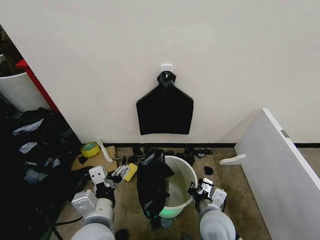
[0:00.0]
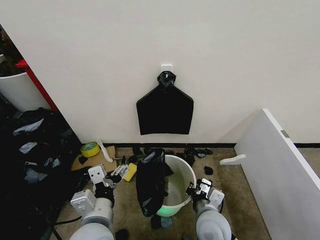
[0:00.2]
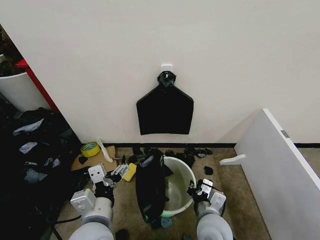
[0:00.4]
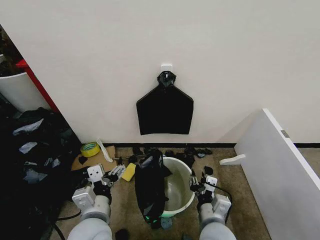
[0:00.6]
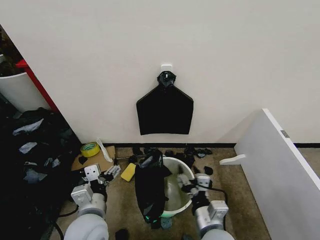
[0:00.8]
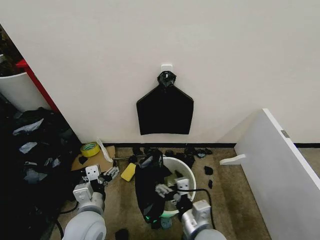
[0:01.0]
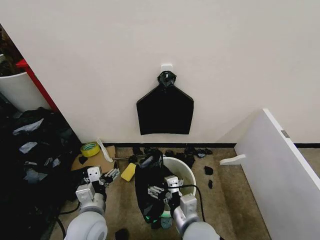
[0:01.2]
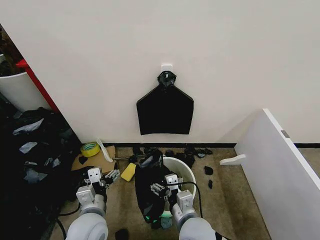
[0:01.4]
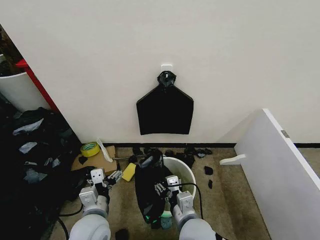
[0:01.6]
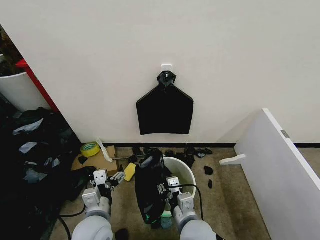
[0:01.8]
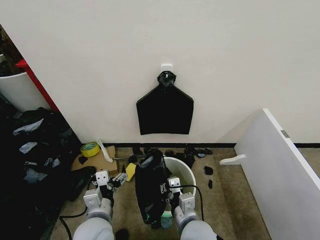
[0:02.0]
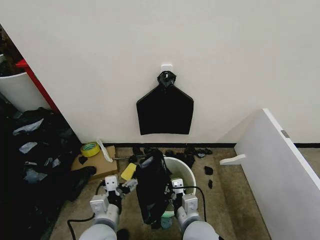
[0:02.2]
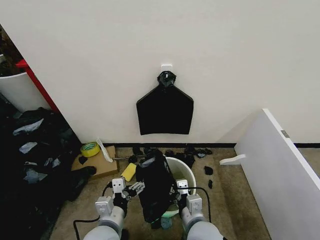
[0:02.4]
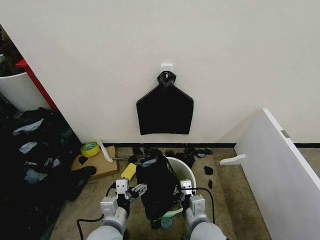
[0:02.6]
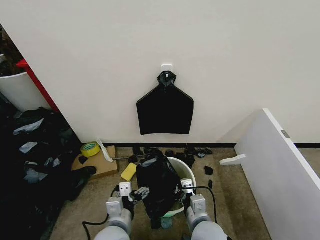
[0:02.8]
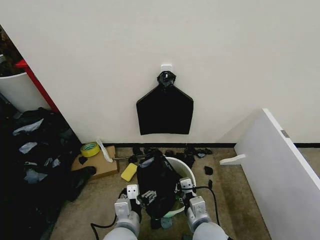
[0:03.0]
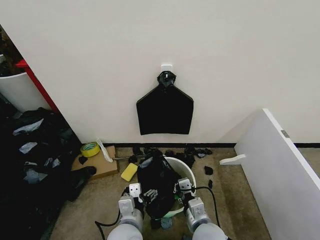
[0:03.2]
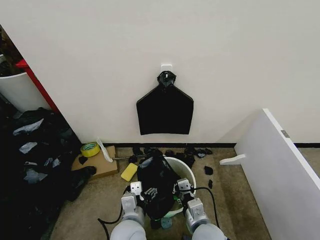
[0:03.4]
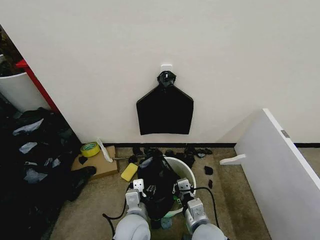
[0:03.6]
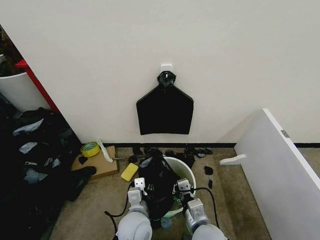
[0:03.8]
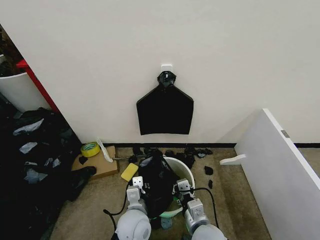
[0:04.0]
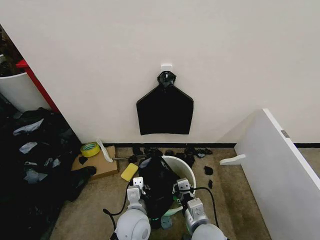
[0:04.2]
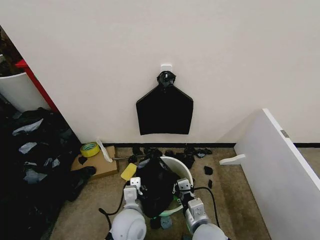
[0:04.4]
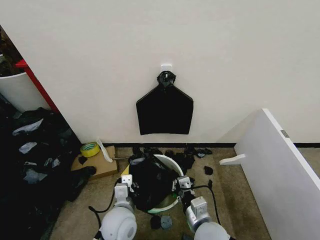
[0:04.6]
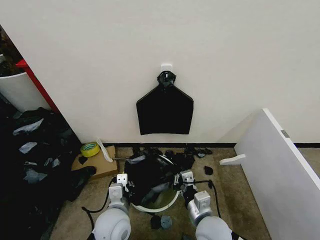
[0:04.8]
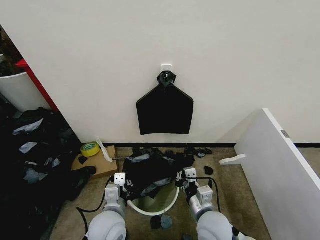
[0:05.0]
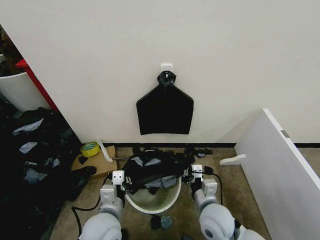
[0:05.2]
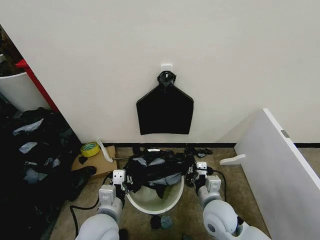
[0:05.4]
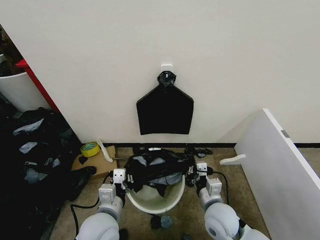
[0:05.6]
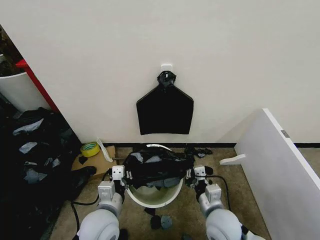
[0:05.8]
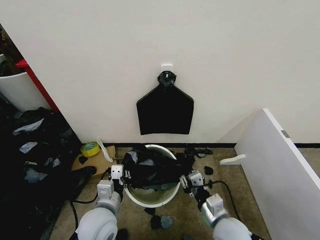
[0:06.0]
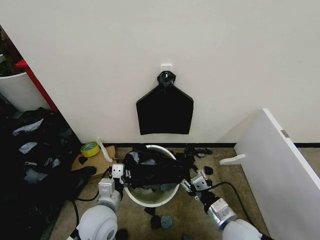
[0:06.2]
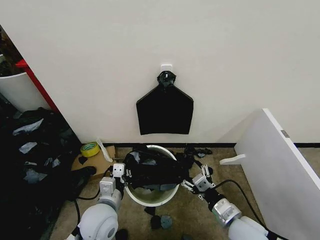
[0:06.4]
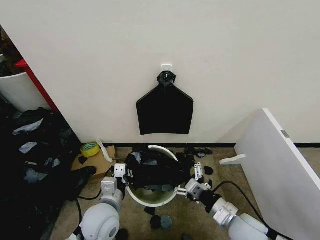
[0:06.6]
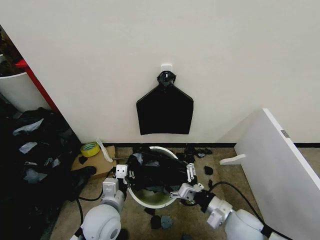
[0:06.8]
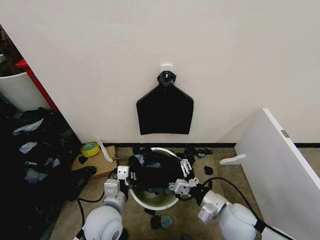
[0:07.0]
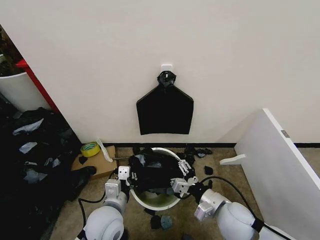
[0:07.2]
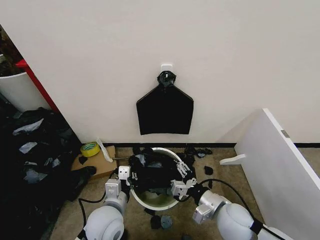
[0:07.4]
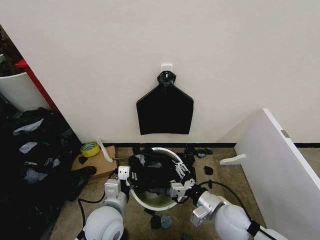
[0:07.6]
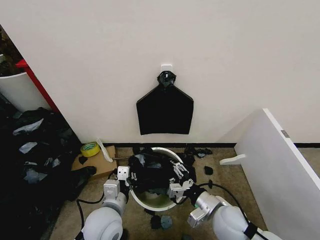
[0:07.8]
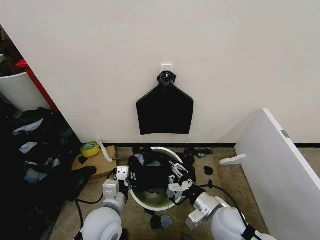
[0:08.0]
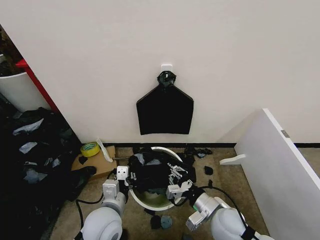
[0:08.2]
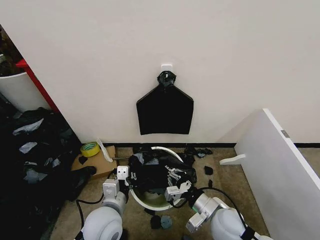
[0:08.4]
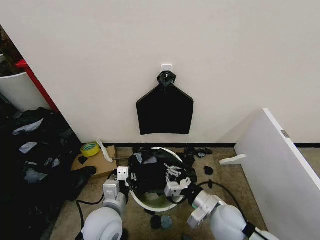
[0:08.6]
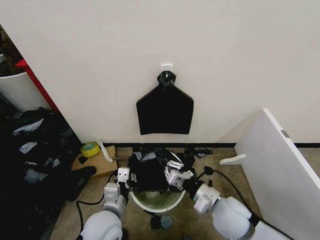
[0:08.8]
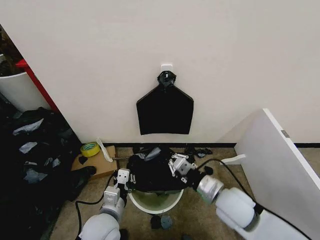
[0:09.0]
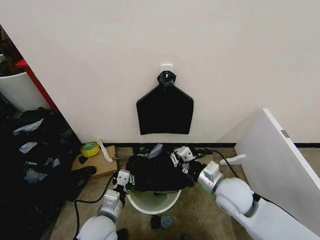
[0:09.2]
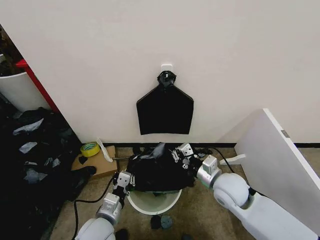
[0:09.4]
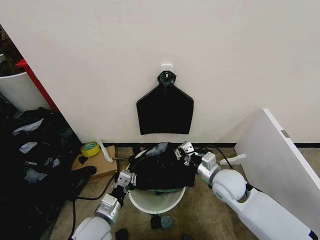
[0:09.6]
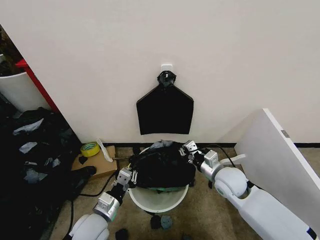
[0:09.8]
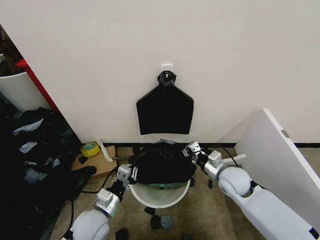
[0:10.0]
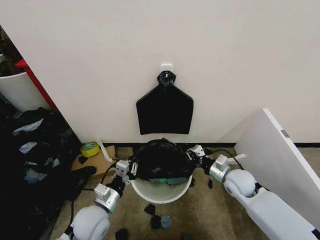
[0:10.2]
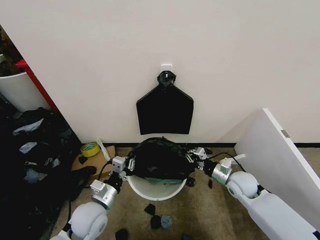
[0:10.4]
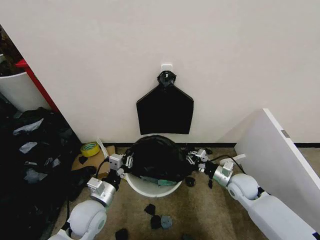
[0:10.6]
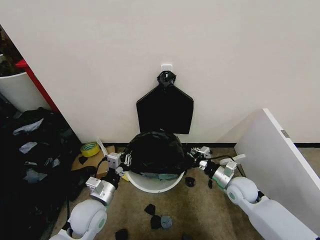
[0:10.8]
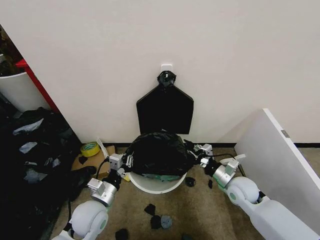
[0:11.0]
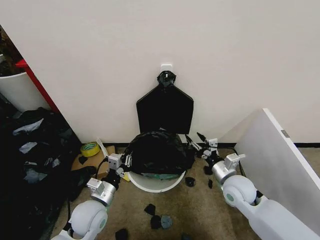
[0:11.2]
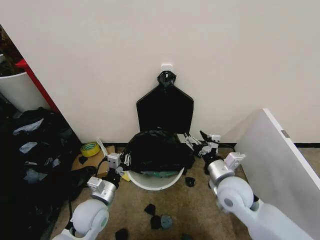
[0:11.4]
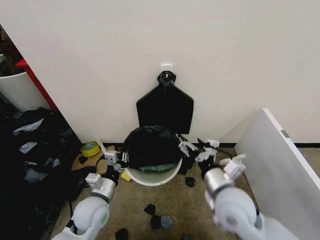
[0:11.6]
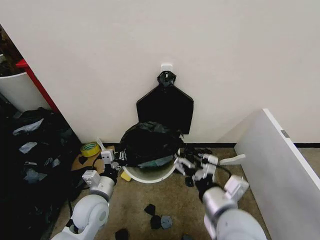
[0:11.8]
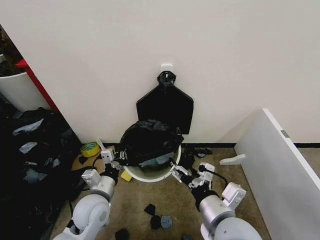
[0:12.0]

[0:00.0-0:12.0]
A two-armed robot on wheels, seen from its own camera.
Task of the whole recording: Place the garbage bag over the trash bin.
0:00.0 to 0:01.6: The right gripper goes some 5 cm to the left, and opens its fingers, while the left gripper shifts roughly 5 cm downward.
0:01.6 to 0:03.0: The left gripper goes approximately 10 cm to the right. The right gripper shifts by about 5 cm, and closes.
0:03.0 to 0:04.4: The left gripper is displaced forward by about 5 cm, and closes up.
0:04.4 to 0:06.0: The right gripper heads to the right, covering approximately 5 cm. The left gripper is displaced to the left and upward by about 10 cm.
0:06.0 to 0:07.6: The right gripper opens.
0:07.6 to 0:09.0: The right gripper travels upward by approximately 5 cm, and closes up.
0:09.0 to 0:10.4: The right gripper moves forward, to the right and downward, approximately 15 cm. The left gripper goes some 5 cm to the left.
0:10.4 to 0:12.0: The right gripper heads backward, upward and to the left, covering some 30 cm, and opens up.

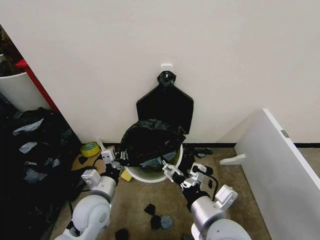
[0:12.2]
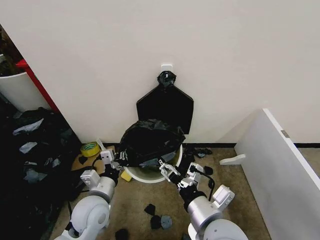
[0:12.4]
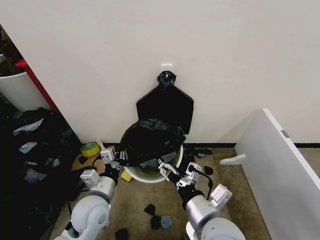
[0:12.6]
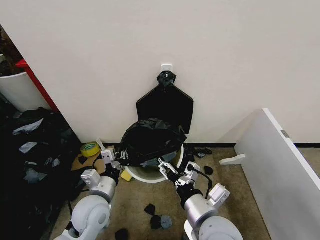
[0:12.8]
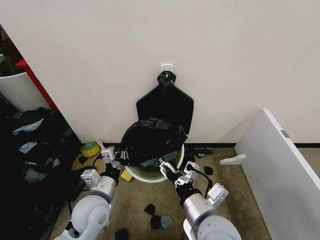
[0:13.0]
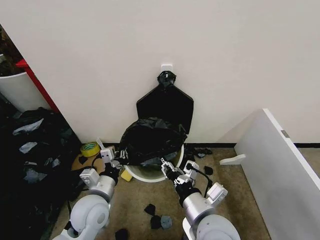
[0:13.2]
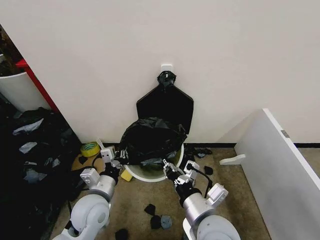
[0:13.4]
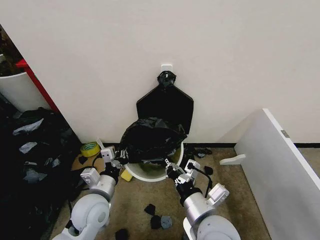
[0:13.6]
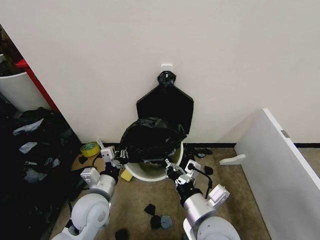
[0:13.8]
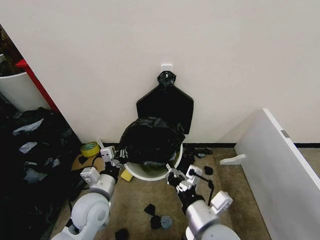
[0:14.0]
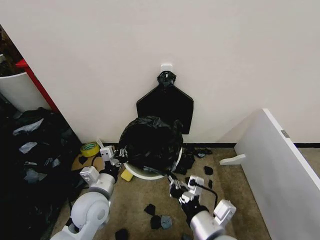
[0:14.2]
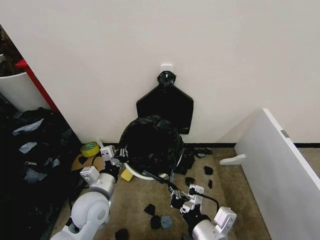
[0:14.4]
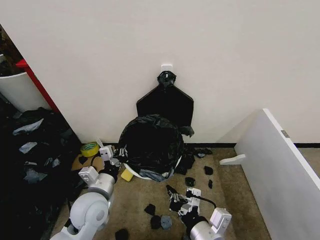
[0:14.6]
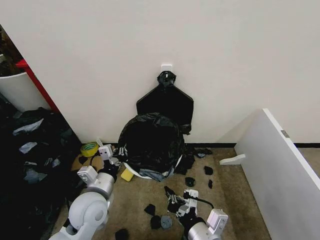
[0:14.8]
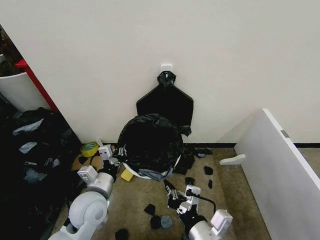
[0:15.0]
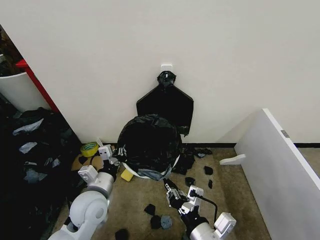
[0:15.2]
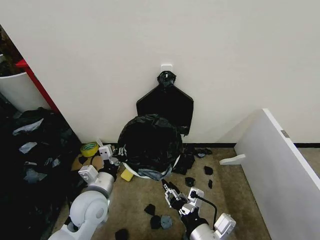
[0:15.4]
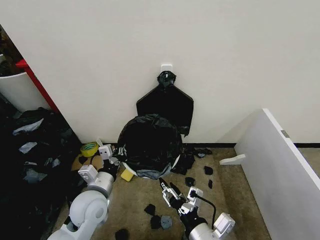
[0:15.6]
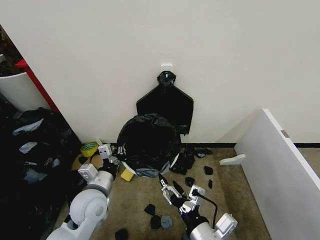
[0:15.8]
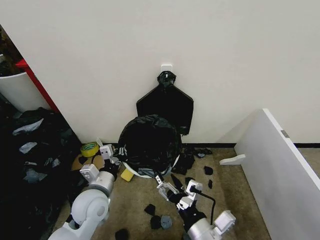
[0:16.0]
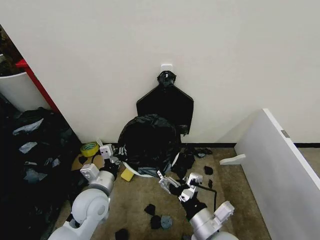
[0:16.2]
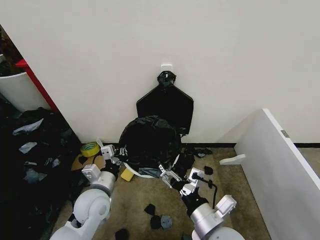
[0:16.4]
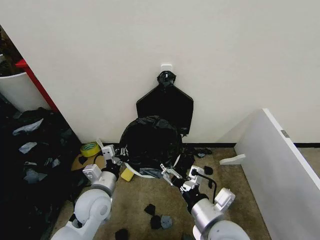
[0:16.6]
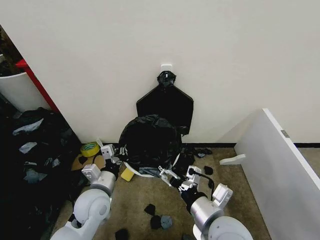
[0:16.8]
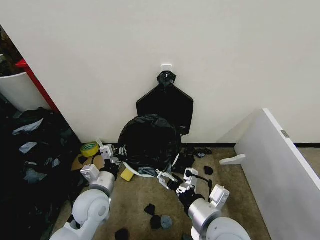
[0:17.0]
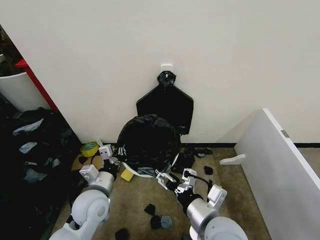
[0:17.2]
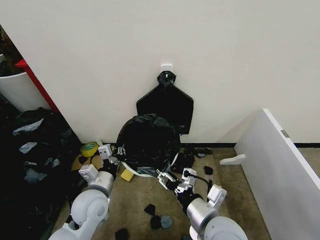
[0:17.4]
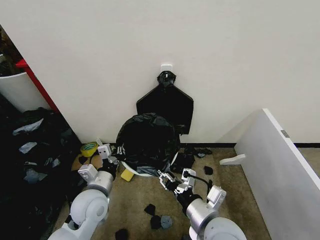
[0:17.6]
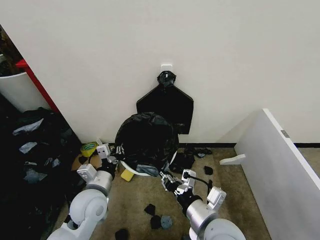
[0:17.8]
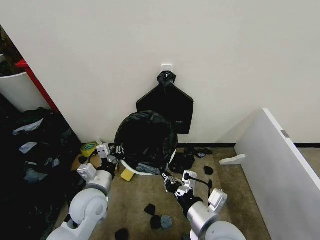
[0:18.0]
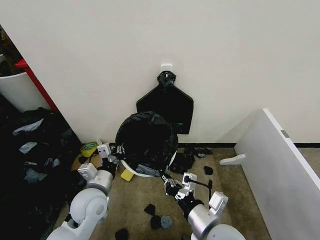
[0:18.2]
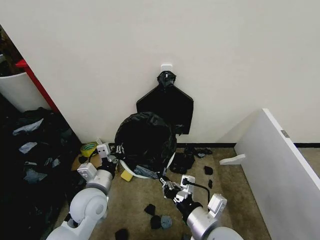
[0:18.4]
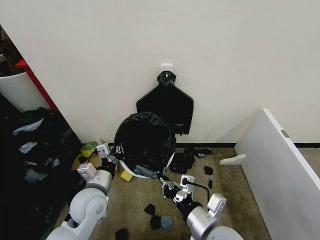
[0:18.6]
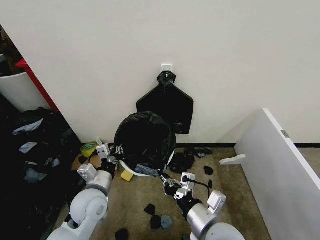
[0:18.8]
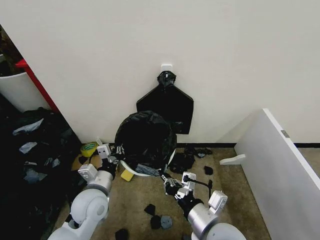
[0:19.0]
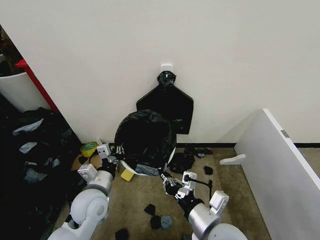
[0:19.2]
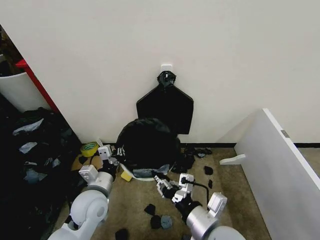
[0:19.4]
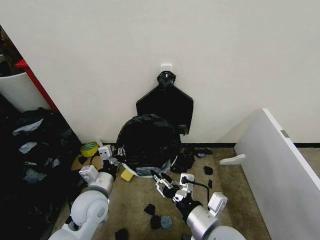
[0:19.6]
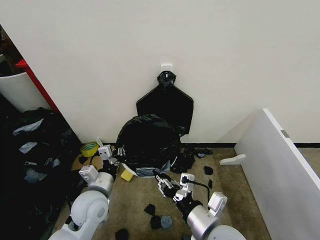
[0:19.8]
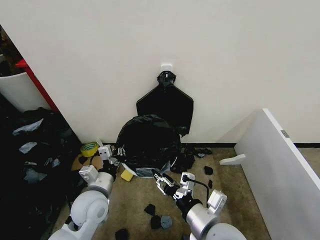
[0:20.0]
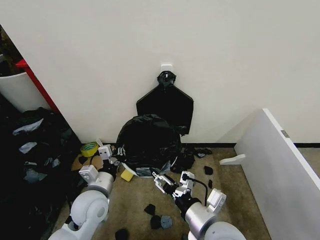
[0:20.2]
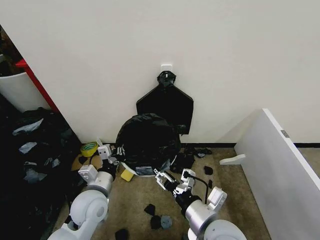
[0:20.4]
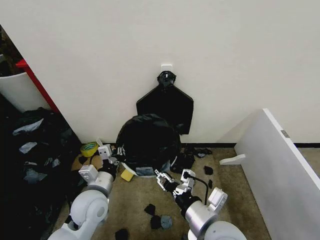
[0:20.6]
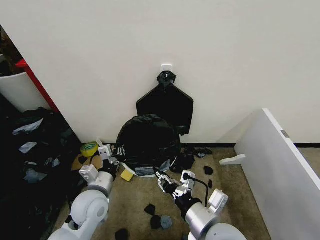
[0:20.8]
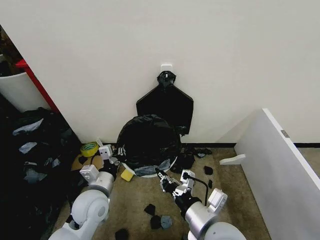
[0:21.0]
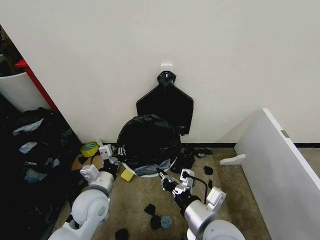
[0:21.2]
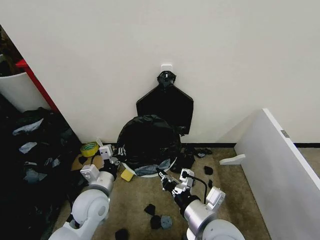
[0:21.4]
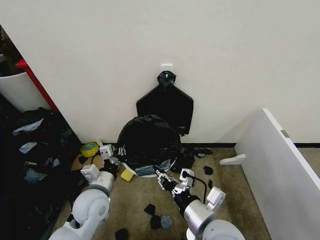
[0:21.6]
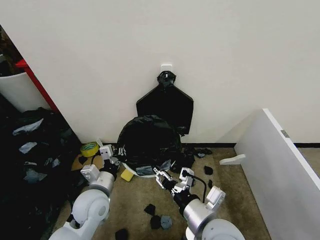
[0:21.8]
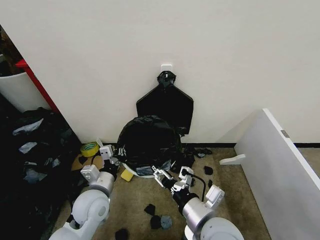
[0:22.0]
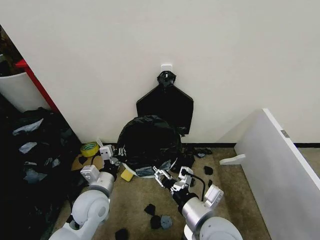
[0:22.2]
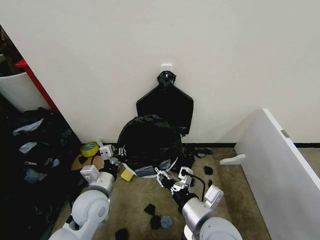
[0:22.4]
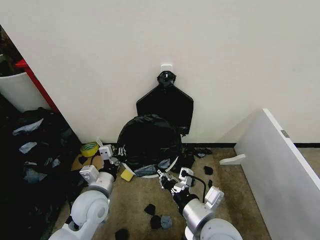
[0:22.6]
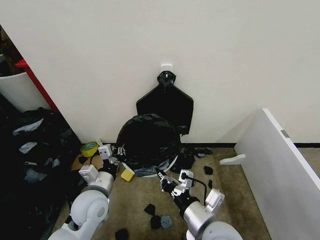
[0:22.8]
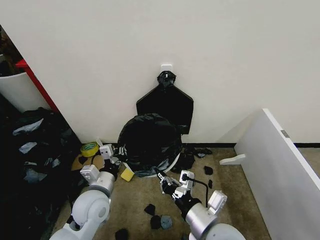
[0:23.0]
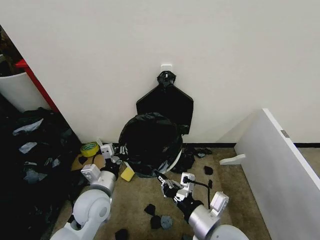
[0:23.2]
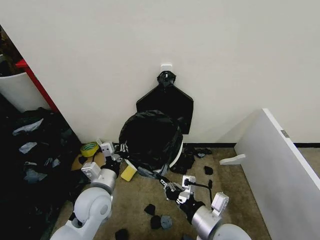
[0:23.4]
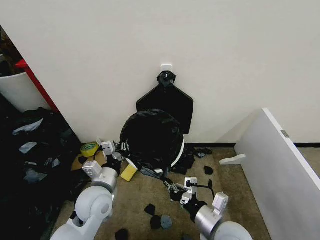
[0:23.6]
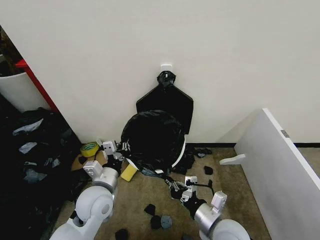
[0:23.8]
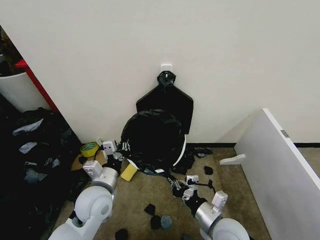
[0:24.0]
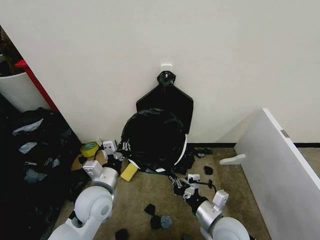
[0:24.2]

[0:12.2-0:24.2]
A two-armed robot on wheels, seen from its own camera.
Task of the whole recording: Place the garbage bag over the trash bin.
0:12.2 to 0:13.8: The right gripper closes.
0:13.8 to 0:15.2: The right gripper travels backward by some 5 cm.
0:15.2 to 0:16.6: The right gripper moves forward, roughly 5 cm, and opens its fingers.
0:16.6 to 0:18.2: The right gripper closes up.
0:18.2 to 0:19.8: Neither gripper changes place.
0:19.8 to 0:21.2: The right gripper opens, then closes once more.
0:21.2 to 0:22.6: The right gripper opens and closes again.
0:22.6 to 0:24.2: The right gripper moves downward and to the right, about 10 cm.
